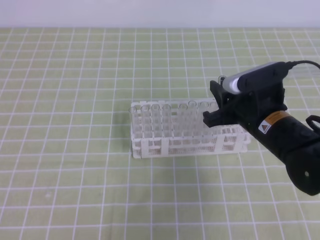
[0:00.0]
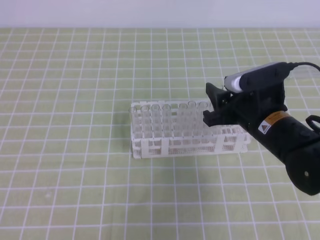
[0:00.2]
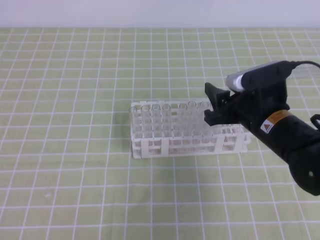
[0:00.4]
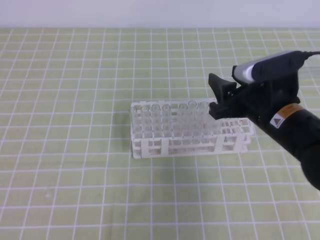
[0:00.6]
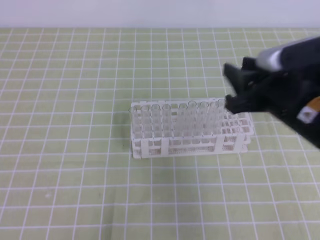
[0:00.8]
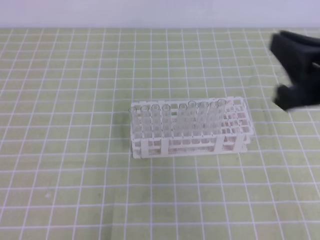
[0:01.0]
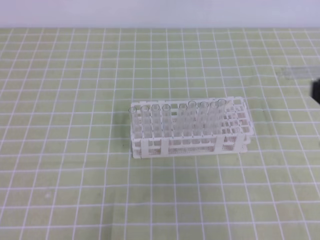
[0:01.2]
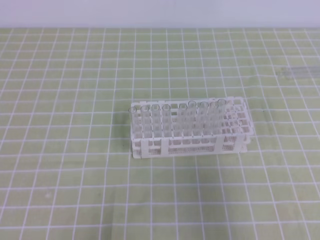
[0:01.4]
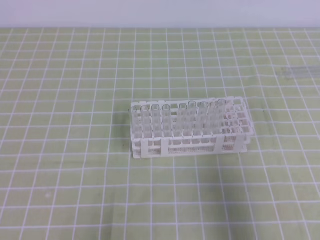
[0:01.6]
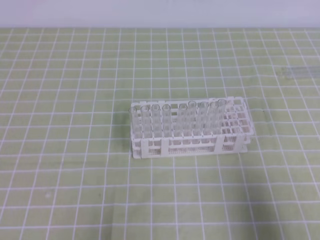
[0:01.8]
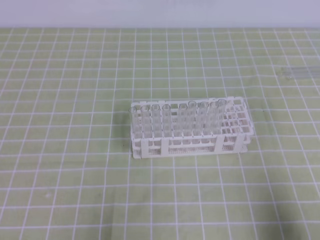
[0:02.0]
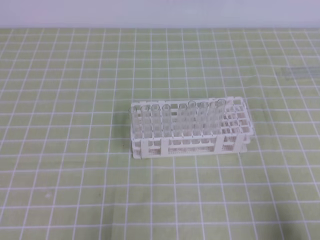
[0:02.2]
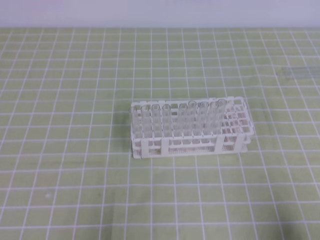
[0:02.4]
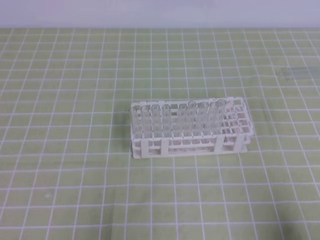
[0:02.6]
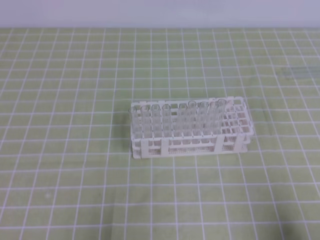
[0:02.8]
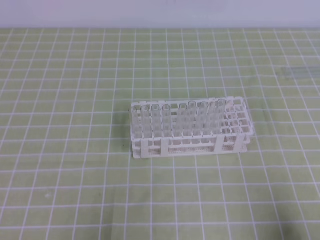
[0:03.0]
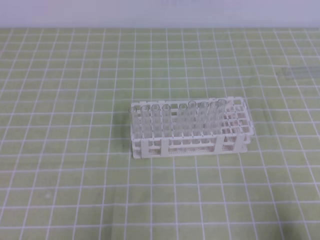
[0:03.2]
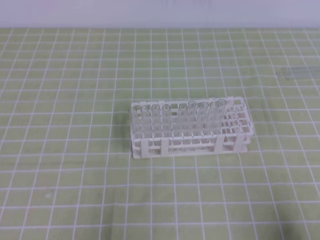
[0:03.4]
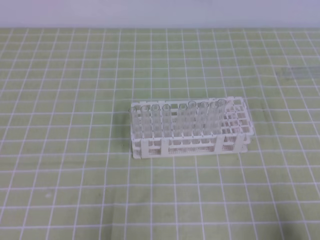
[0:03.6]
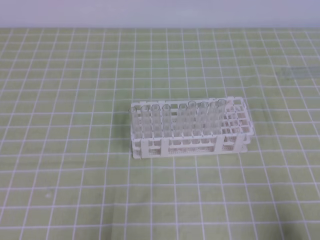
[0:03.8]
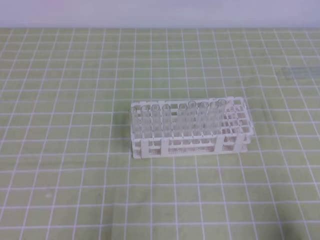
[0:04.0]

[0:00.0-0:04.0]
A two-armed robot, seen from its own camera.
0:00.0 to 0:01.4: The right gripper travels backward, upward and to the right by approximately 20 cm, and opens, then closes once more.
0:01.4 to 0:02.6: The right gripper goes some 20 cm downward and backward.
0:02.6 to 0:04.0: Both grippers stay put.
